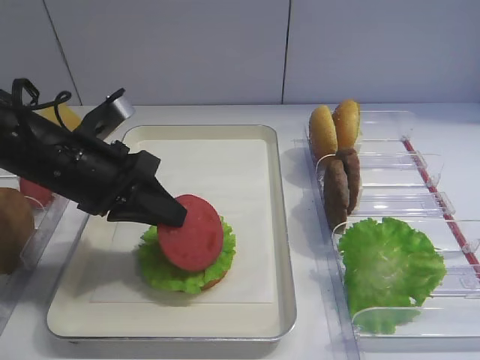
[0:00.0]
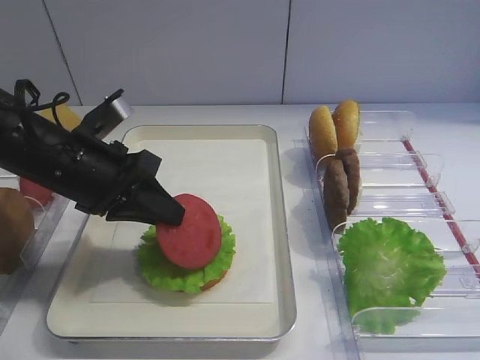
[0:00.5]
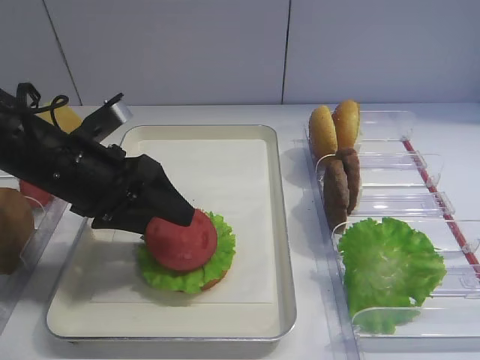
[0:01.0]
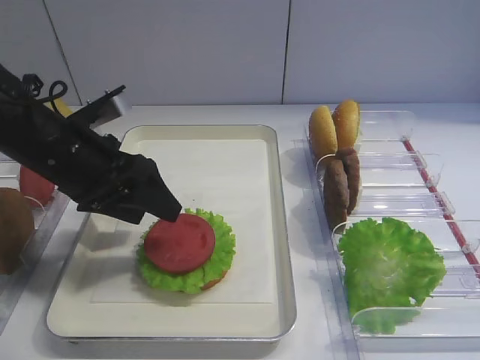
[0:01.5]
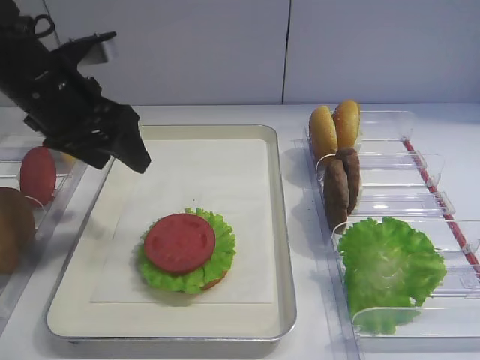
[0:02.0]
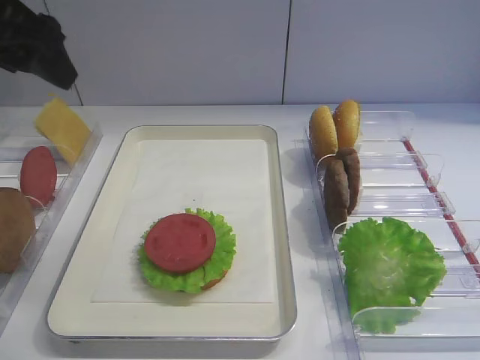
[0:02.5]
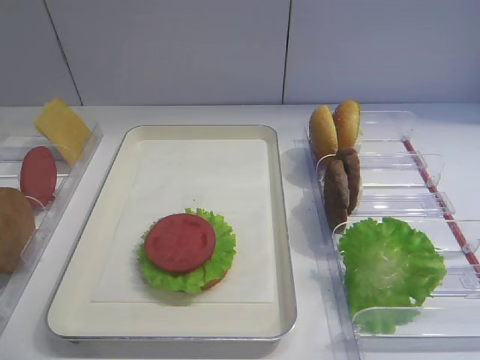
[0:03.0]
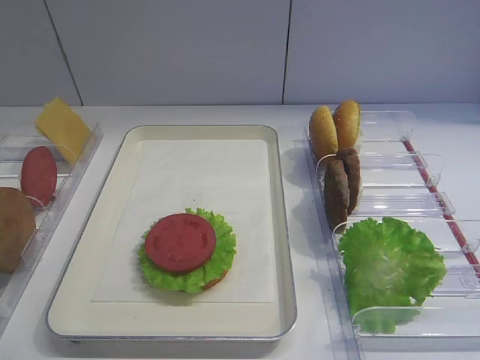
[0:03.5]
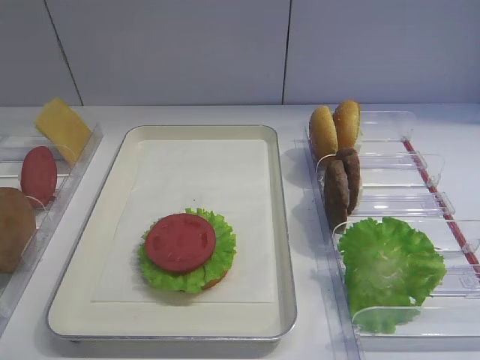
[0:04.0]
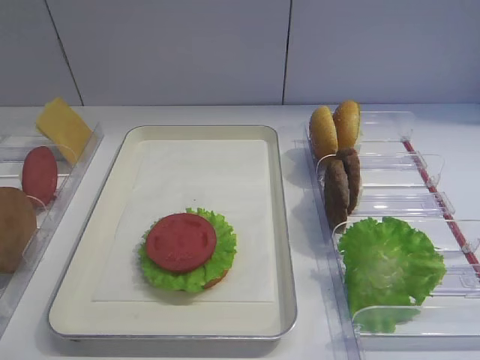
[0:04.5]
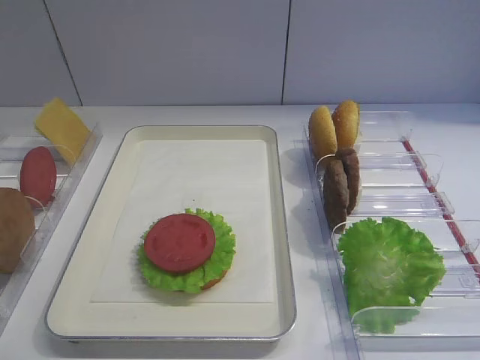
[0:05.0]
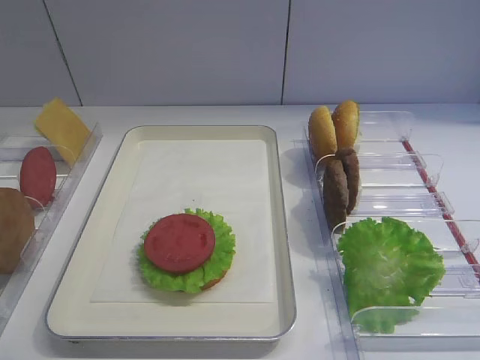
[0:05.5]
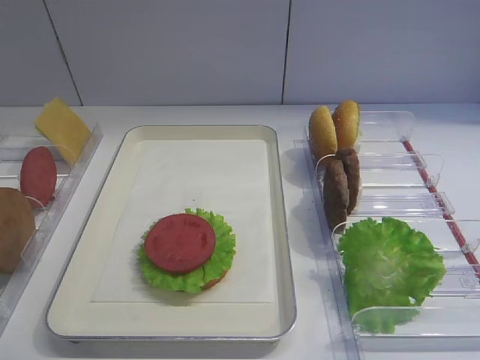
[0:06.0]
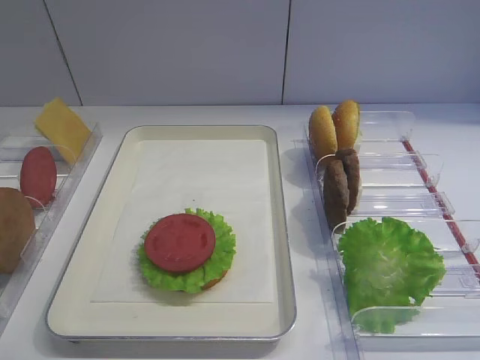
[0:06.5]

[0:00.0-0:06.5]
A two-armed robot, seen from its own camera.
0:00.0 to 0:02.0: The left gripper travels upward by approximately 5 cm, and opens up.
0:02.0 to 0:04.5: The left gripper travels backward by roughly 35 cm.
0:04.5 to 0:06.5: The two grippers keep their place.

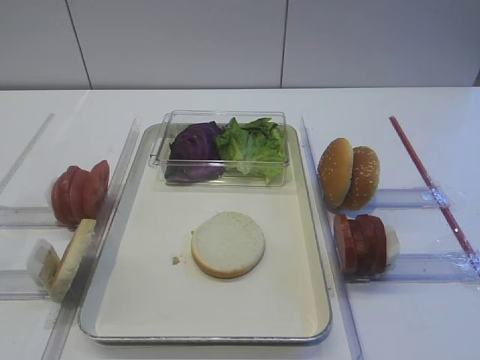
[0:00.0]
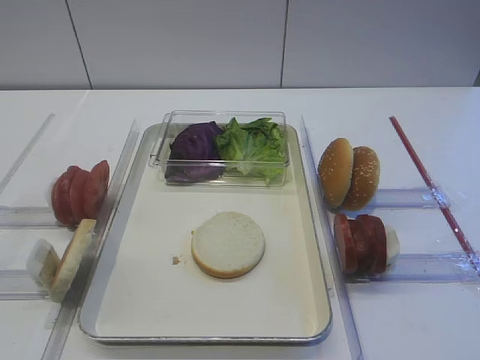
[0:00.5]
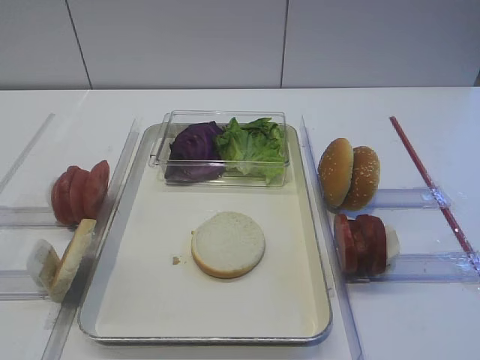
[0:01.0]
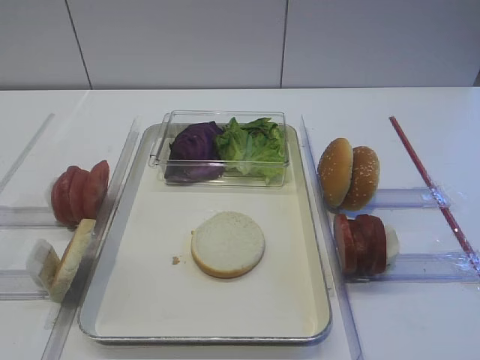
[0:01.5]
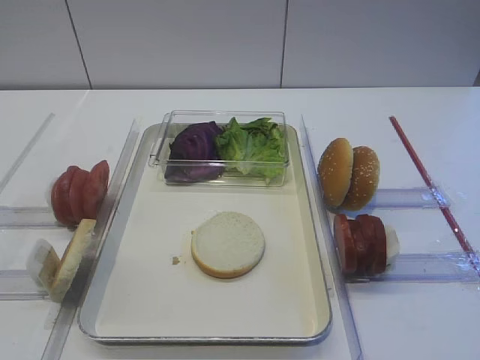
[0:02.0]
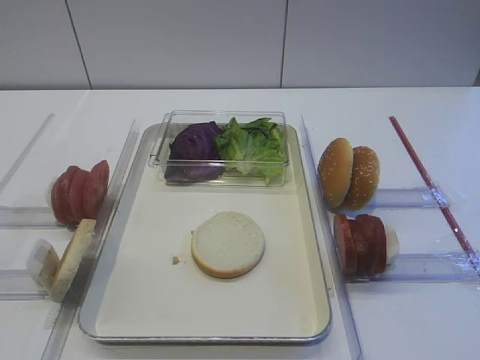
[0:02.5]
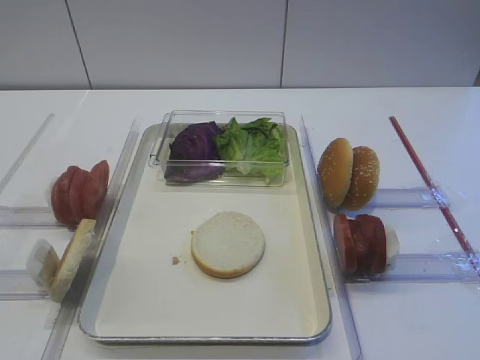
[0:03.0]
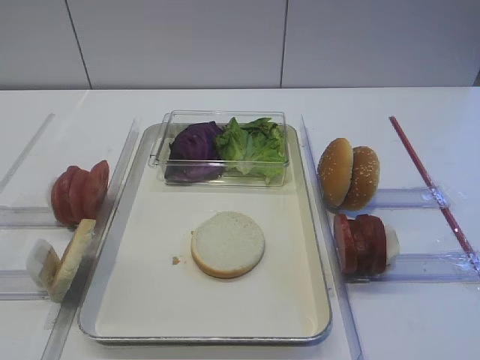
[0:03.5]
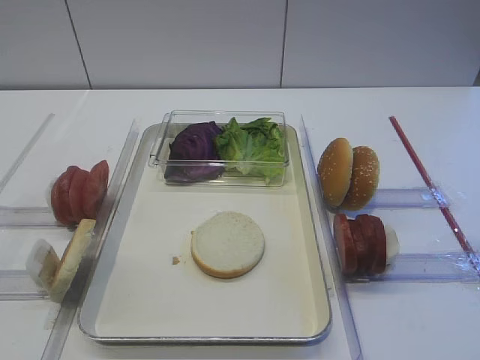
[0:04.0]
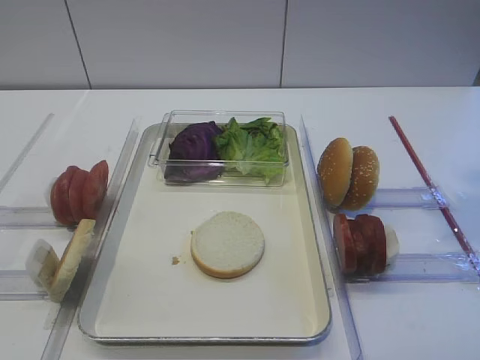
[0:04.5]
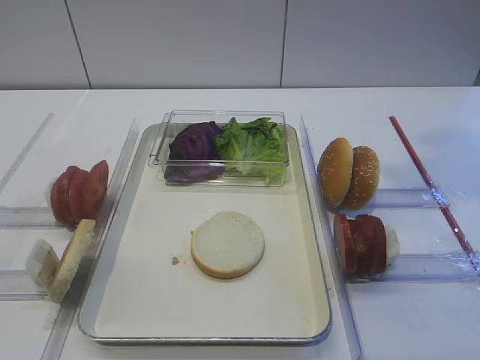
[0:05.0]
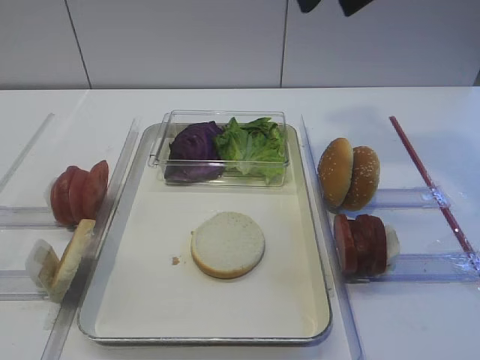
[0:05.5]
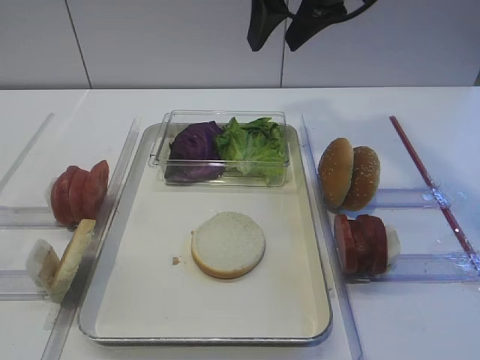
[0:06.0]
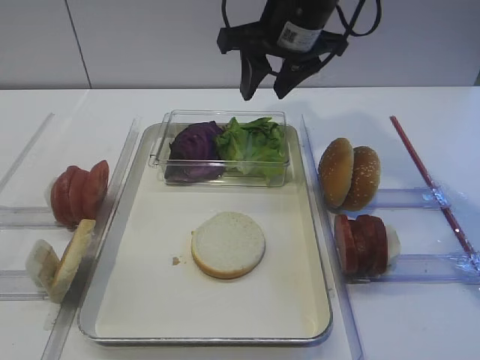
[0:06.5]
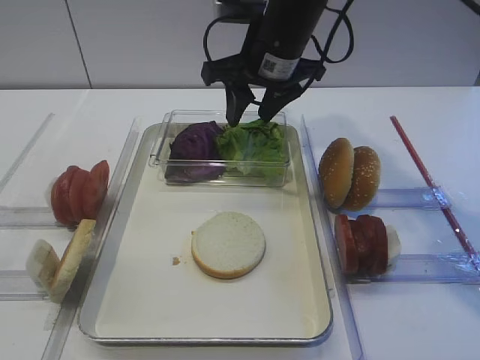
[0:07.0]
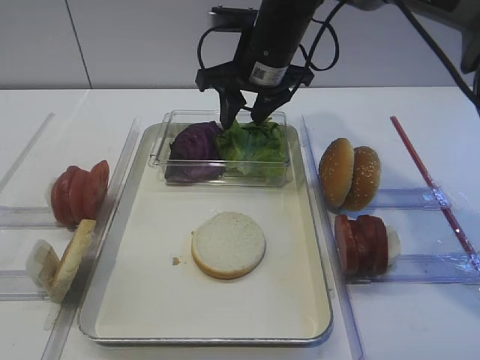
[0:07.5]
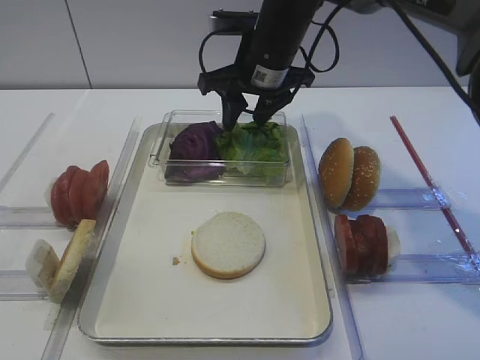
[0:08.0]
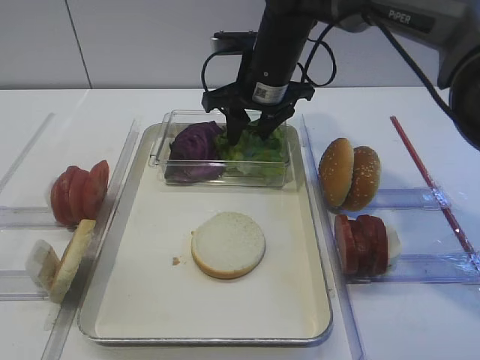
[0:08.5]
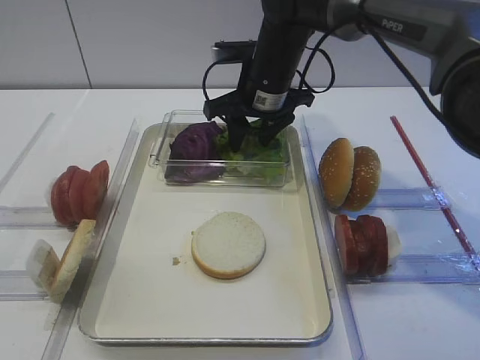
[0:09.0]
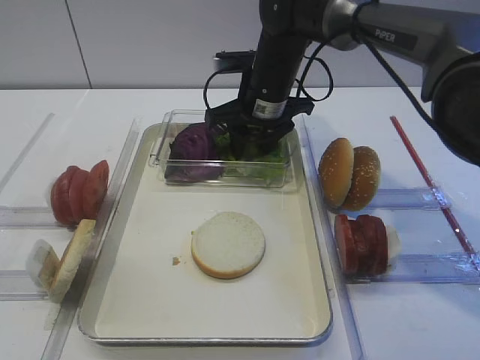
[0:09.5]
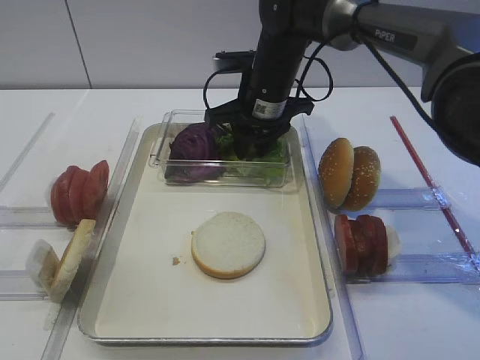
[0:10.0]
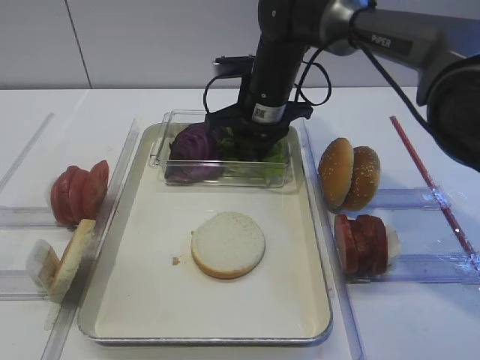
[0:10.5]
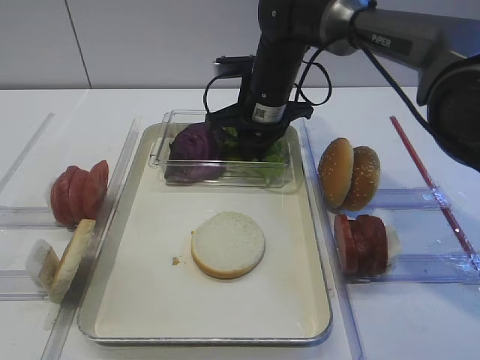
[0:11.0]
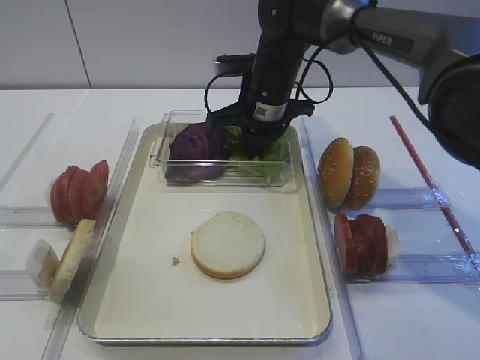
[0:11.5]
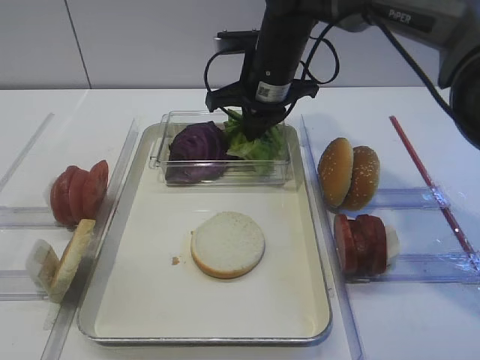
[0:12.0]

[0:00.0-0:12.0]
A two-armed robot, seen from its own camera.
0:04.0 to 0:06.0: The right gripper shifts about 30 cm forward and to the left.
0:06.0 to 0:08.0: The right gripper shifts about 15 cm downward and forward.
0:08.0 to 0:10.0: The right gripper travels downward by some 5 cm.
0:10.0 to 0:12.0: The right gripper closes its fingers.

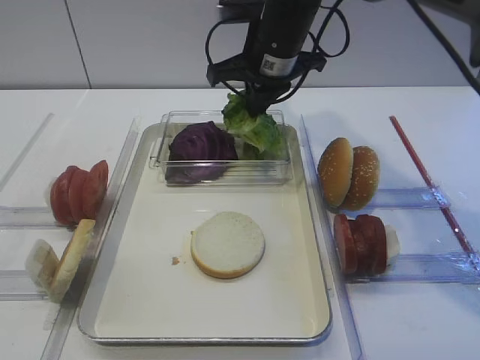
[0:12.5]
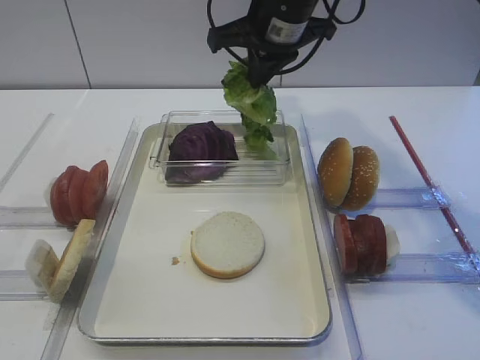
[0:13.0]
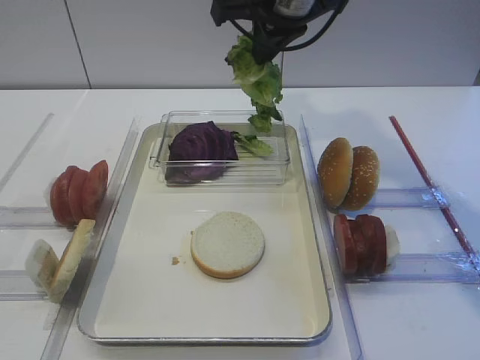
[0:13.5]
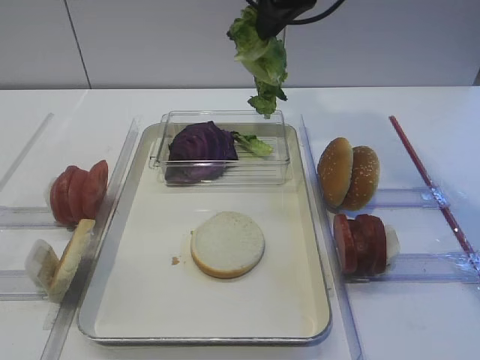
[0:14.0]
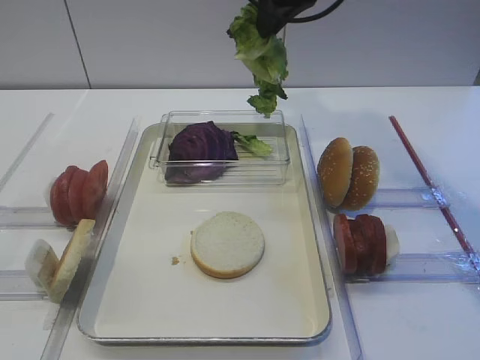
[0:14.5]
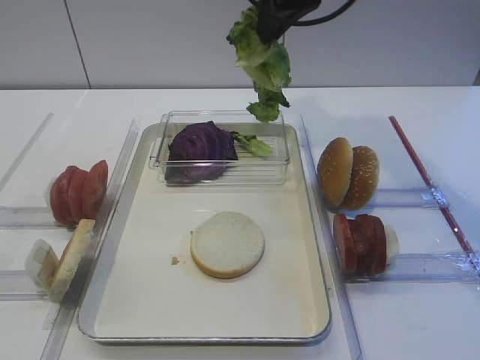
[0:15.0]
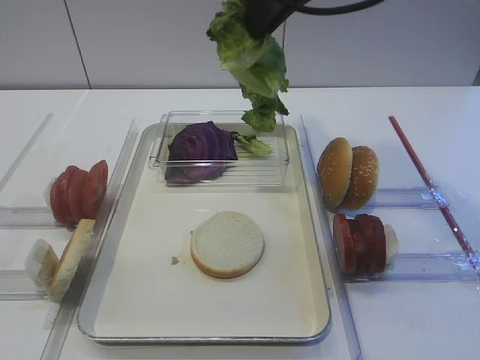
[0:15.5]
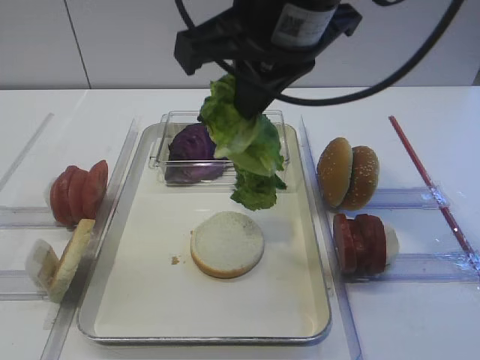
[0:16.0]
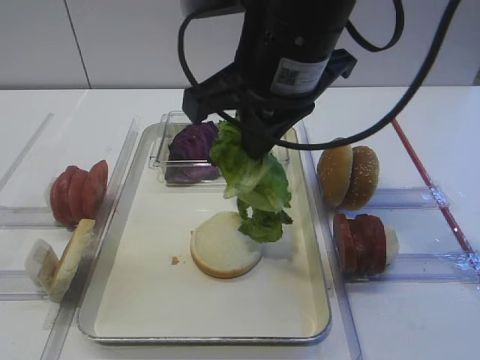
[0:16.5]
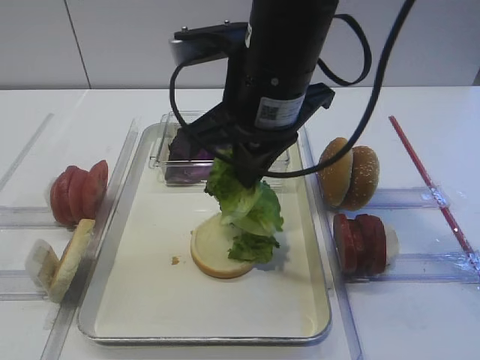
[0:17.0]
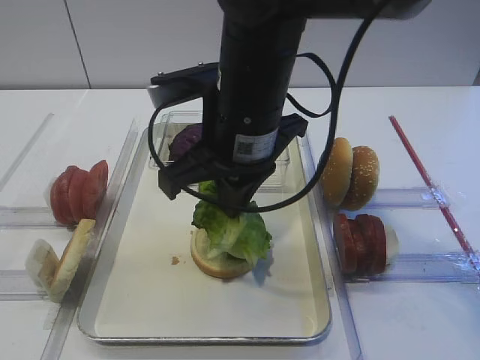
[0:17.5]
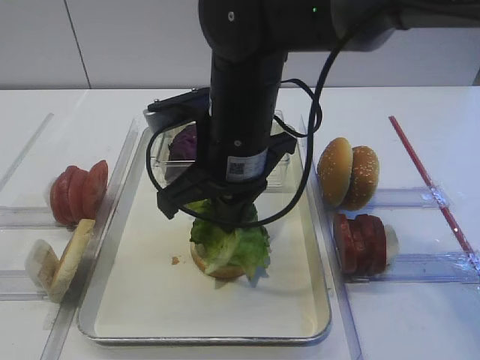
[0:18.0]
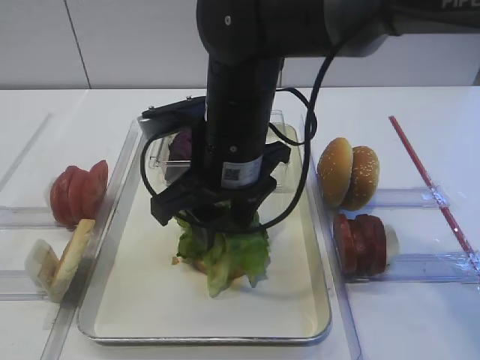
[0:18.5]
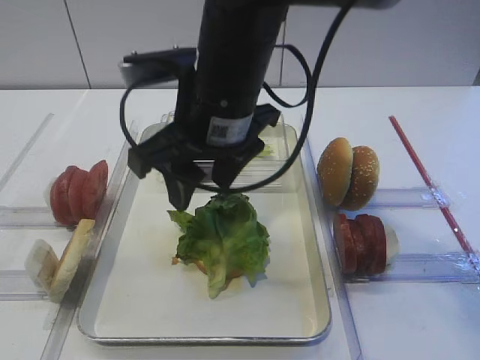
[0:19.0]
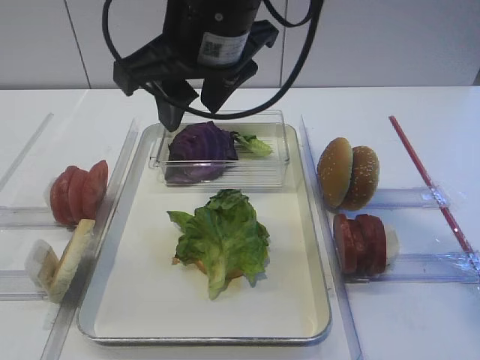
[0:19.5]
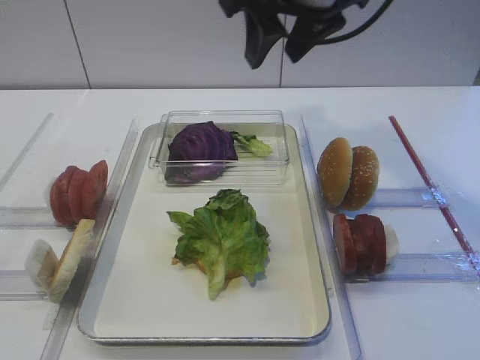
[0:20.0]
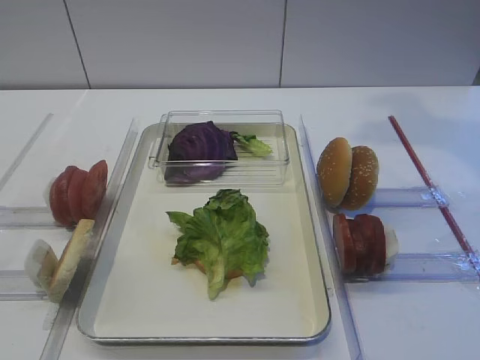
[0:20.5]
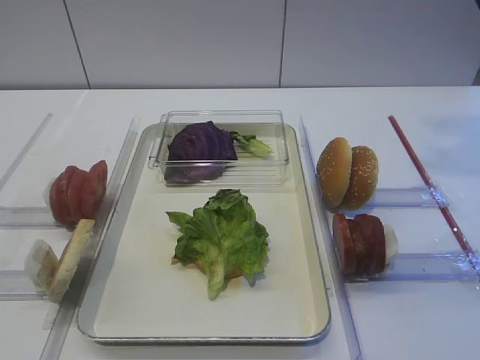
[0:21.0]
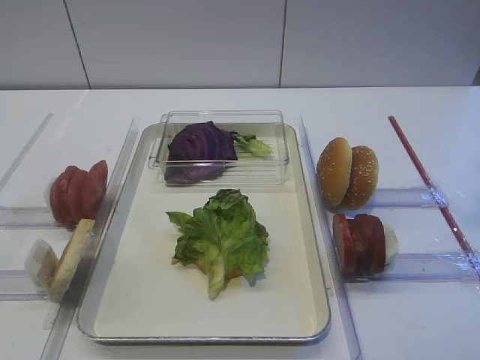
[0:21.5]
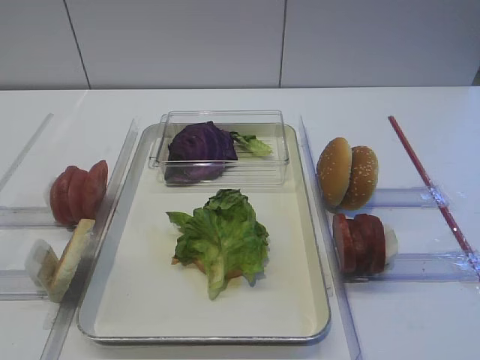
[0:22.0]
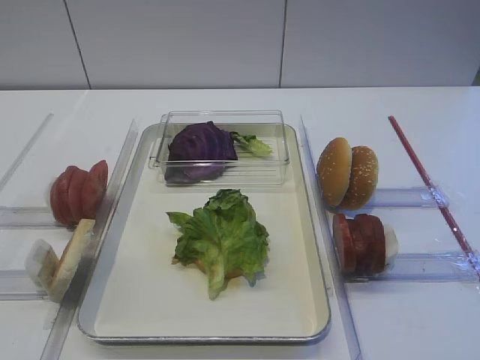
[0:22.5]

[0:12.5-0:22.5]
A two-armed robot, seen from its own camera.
Step, 0:12.5 to 0:14.5: Pick up the lettuce leaf with the right gripper.
Step, 0:15.0 to 0:19.5: Place the lettuce leaf on the bread slice with the right gripper.
0:12.5 to 0:14.5: The right gripper heads upward, covering roughly 10 cm.
0:14.5 to 0:16.5: The right gripper moves backward, roughly 15 cm.
0:16.5 to 0:18.5: The right gripper heads downward and to the left, covering some 10 cm, and opens.
0:18.5 to 0:20.5: The right gripper moves to the right and upward, roughly 25 cm.
